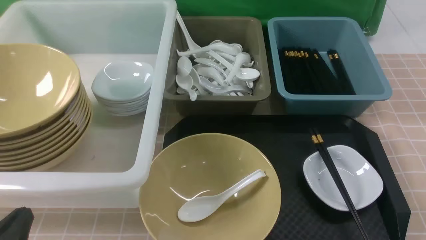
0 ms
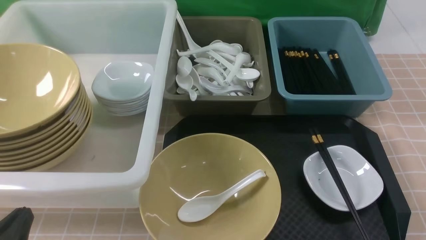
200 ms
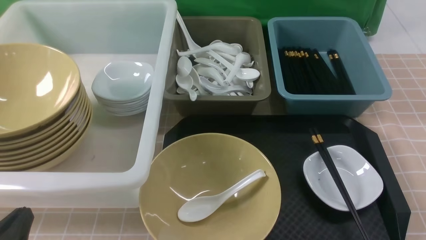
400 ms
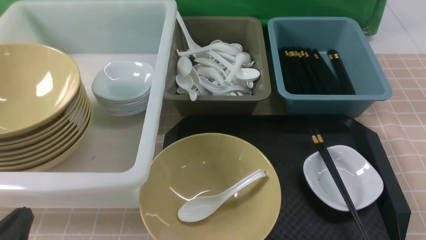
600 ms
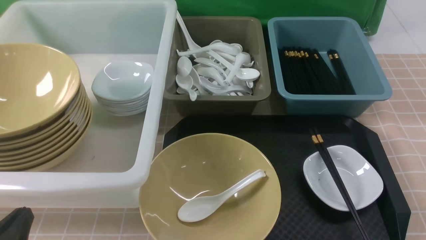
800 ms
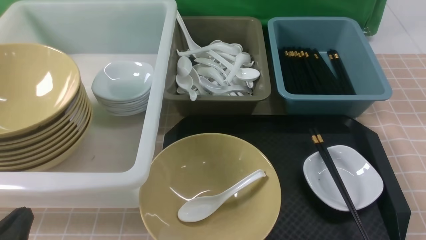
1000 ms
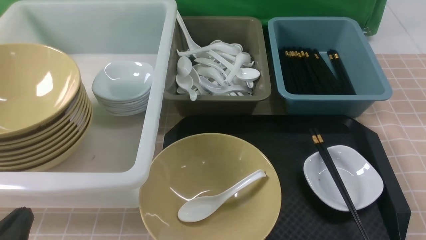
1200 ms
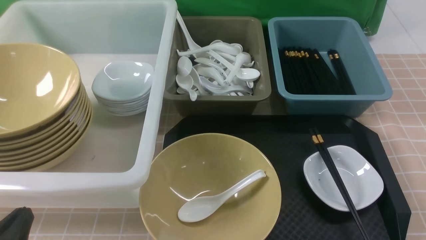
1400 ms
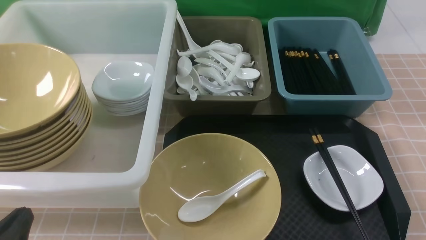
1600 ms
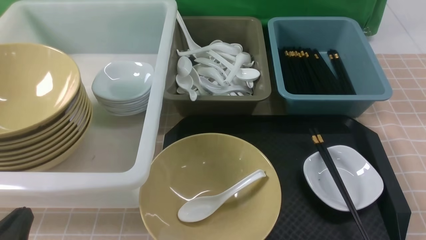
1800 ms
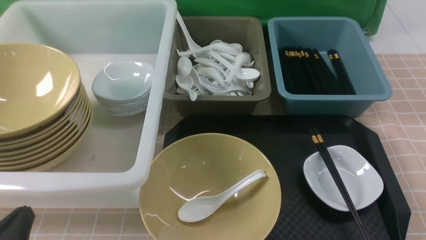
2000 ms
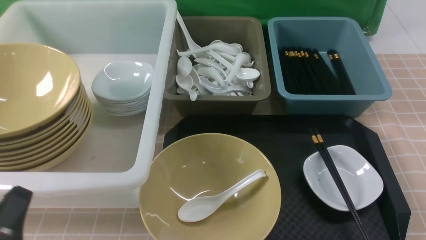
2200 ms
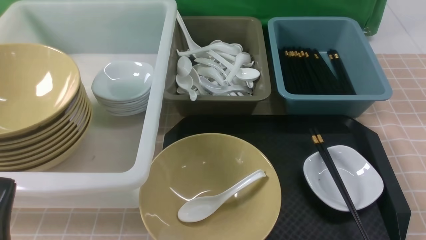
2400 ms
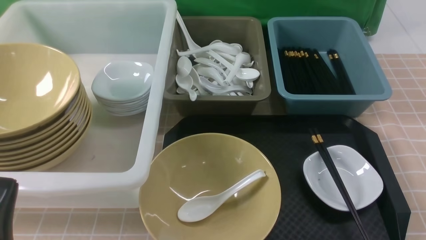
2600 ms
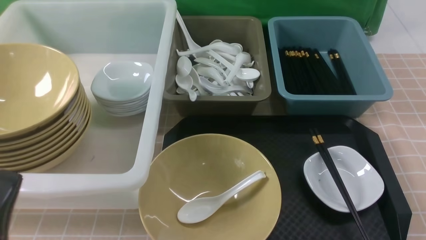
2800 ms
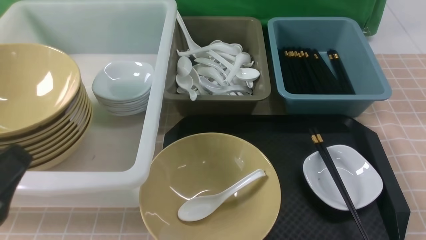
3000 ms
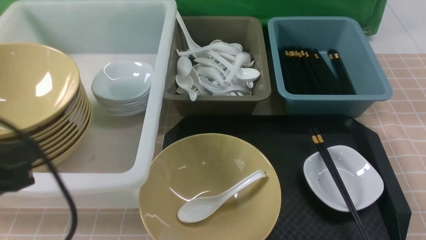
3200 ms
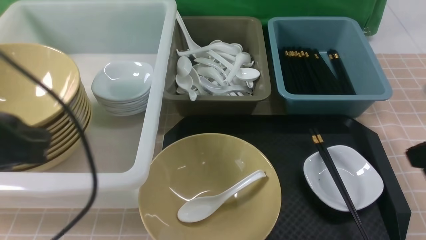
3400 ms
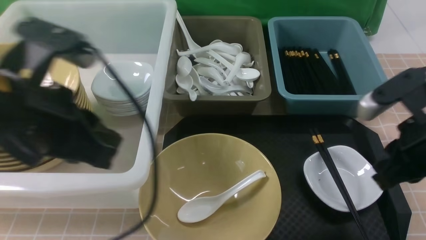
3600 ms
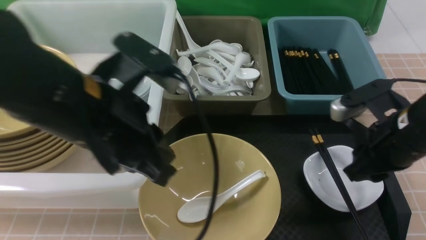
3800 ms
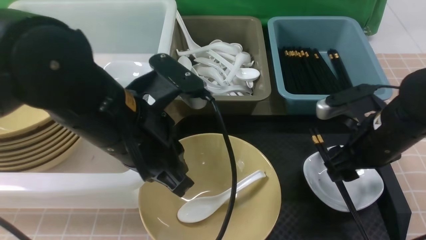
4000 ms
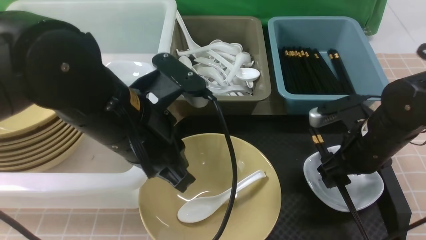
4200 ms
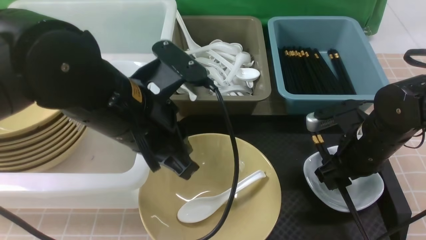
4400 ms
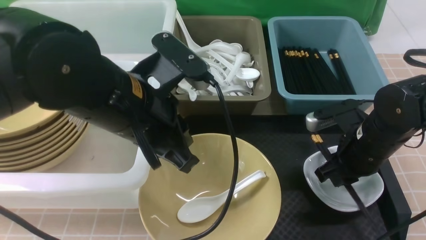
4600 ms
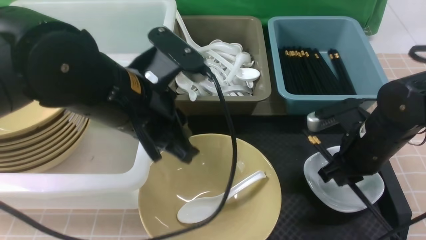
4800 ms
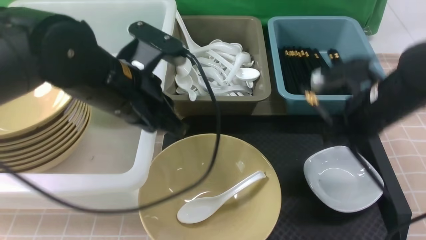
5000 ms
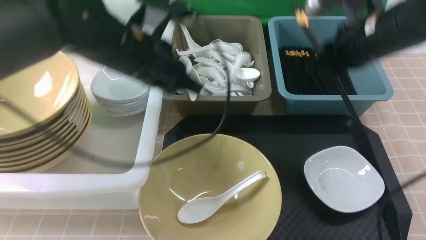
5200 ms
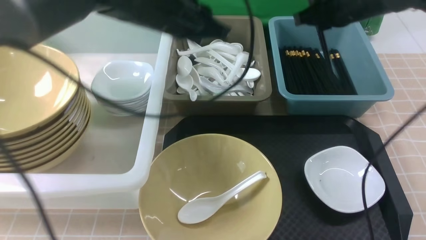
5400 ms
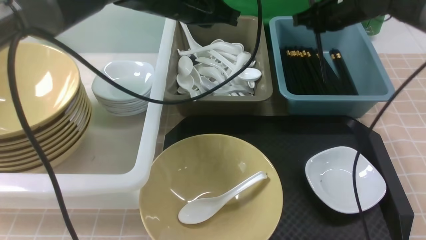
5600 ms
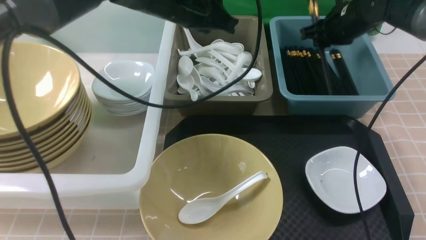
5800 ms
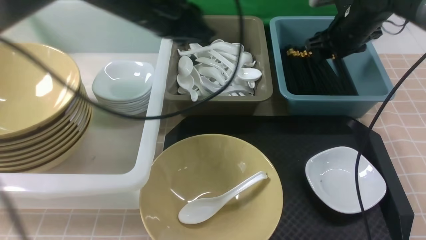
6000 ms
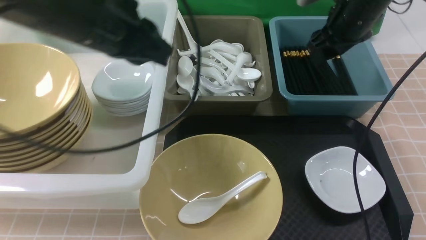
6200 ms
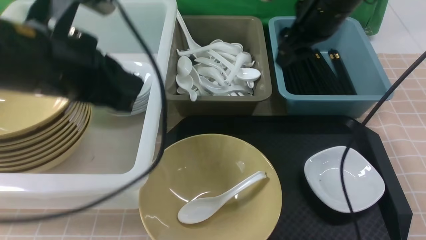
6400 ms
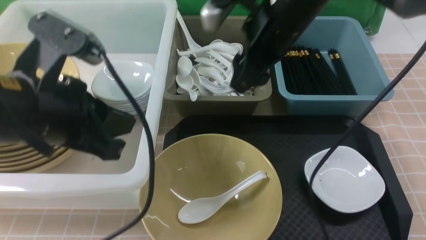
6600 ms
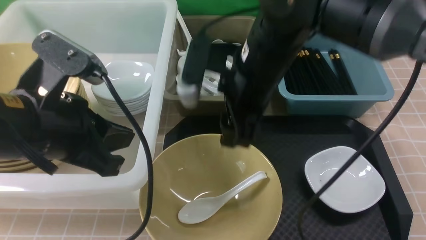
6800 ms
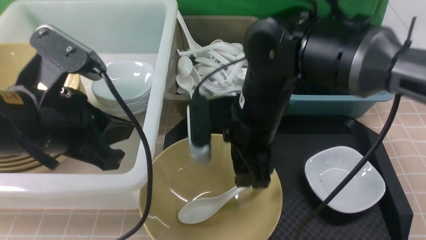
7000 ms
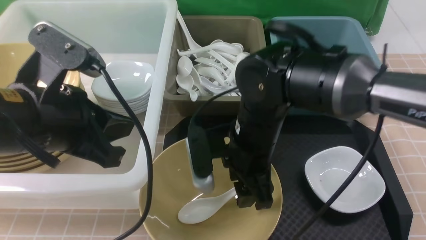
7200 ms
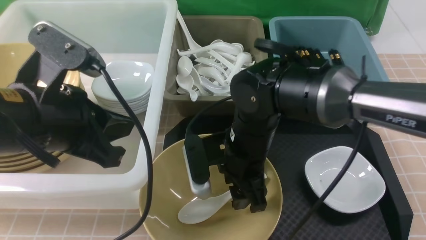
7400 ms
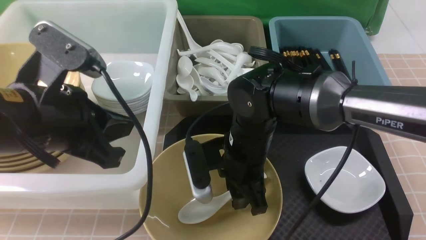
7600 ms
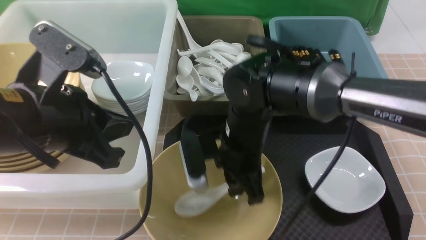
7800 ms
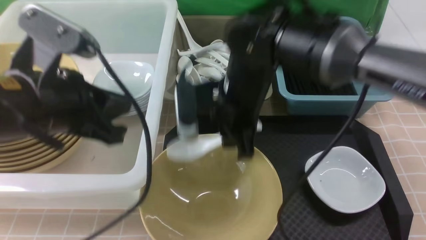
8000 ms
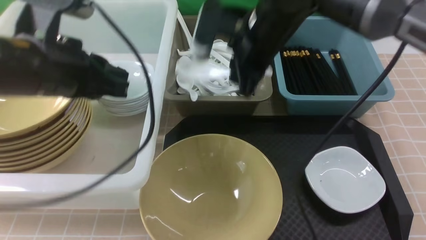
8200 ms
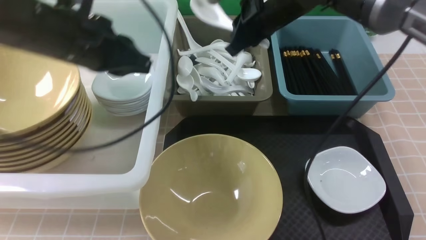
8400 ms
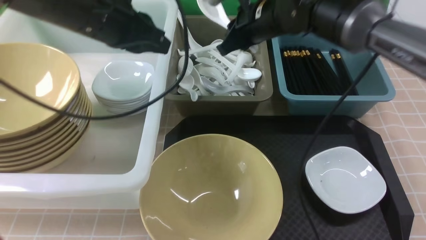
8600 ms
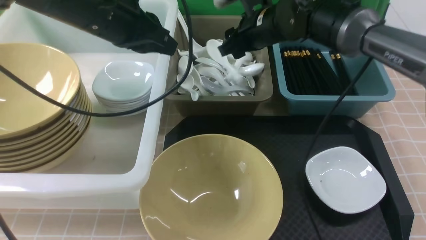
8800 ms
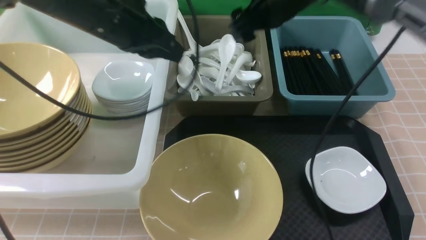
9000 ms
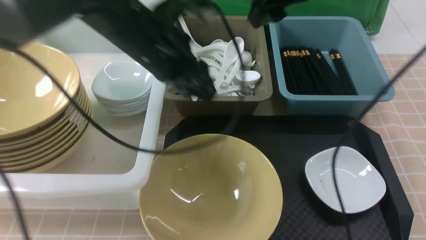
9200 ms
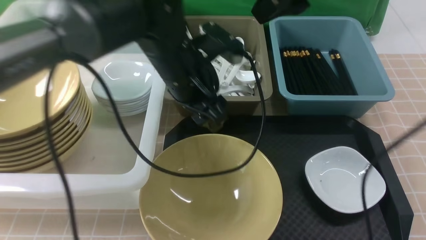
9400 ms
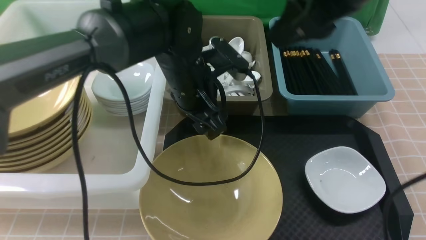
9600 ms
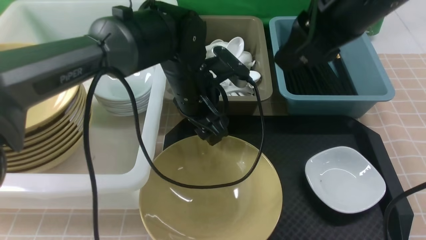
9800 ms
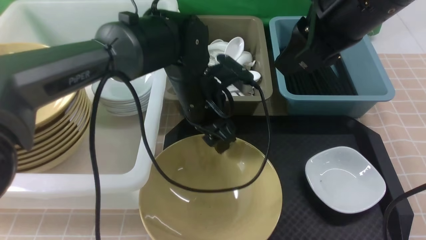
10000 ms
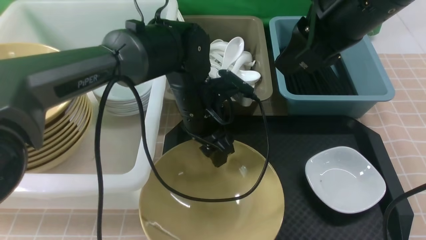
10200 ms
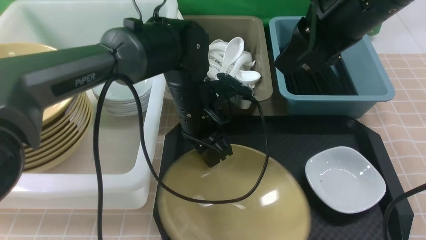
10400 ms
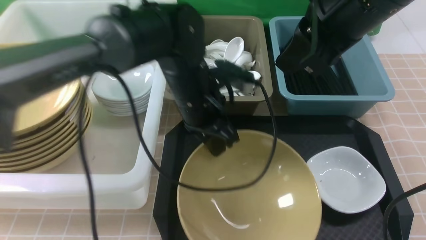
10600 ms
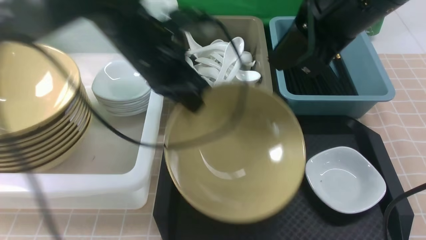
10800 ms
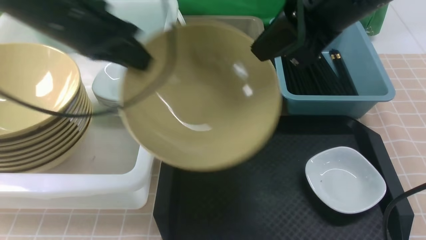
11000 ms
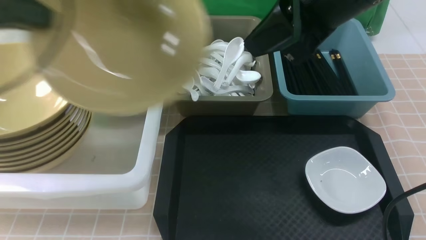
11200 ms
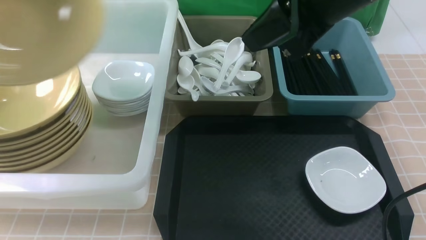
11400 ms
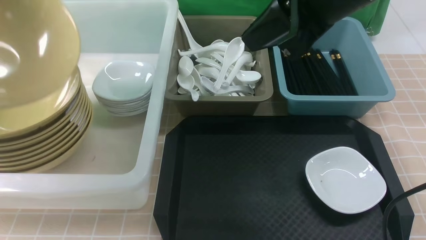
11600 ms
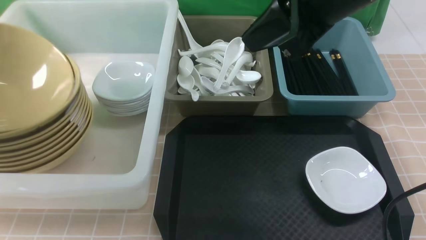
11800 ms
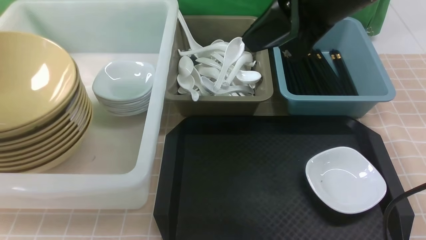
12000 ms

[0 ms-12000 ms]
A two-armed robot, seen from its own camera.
Task of the whole recording: on brown table put chopsticks spoon bowls plates into blue grey white boxes.
Step, 0 ms to 4800 ms: use the right arm to grab the chopsticks.
Step, 5000 ms to 6400 ms: use the right arm to put the chopsticks into the small storage box on the right.
Step, 6600 ms to 7800 ms: use the right arm to grab the soup spoon in the middle.
Step, 8000 ms to 8800 ms: use the right arm to put the soup spoon into the small storage box in the middle.
Step, 9000 ms to 10400 ms: use the left arm to grab the yellow noodle bowl on the left.
1600 ms to 3000 ms: The left gripper moves upward, about 10 cm.
3000 ms to 4400 ms: The right gripper heads forward, covering roughly 25 cm, and opens its fingers; the left gripper shifts about 20 cm forward and to the right.
4400 ms to 6000 ms: The right gripper shifts roughly 20 cm forward and upward, and closes, then opens again. Meanwhile the left gripper is displaced forward by about 15 cm.
6000 ms to 7600 ms: The left gripper heads backward and to the left, covering about 20 cm, while the right gripper shifts approximately 30 cm to the left and backward.
7600 ms to 9000 ms: The left gripper shifts approximately 15 cm forward; the right gripper heads forward, upward and to the right, covering some 20 cm, and closes, then opens again.
9000 ms to 10400 ms: The left gripper travels downward and to the right by about 15 cm, and opens, then closes once more, while the right gripper goes roughly 20 cm backward and upward, and closes its fingers.
10400 ms to 12000 ms: The right gripper closes. The left gripper moves to the left, roughly 40 cm.

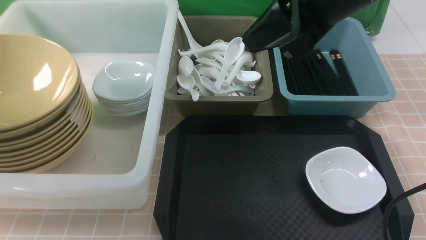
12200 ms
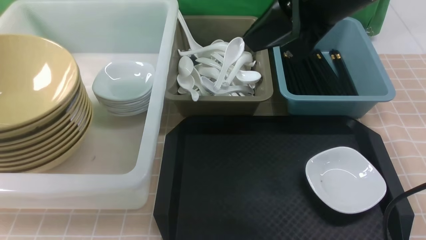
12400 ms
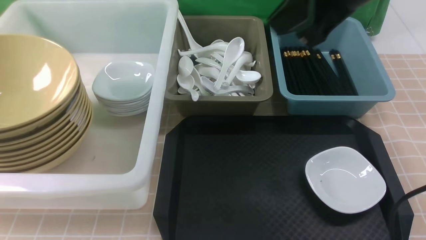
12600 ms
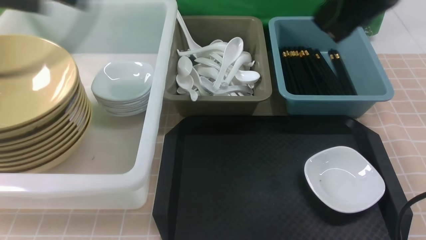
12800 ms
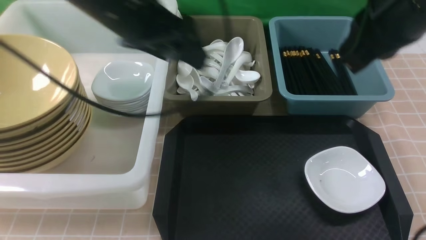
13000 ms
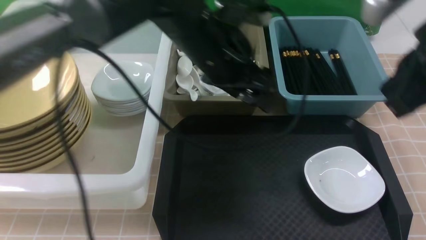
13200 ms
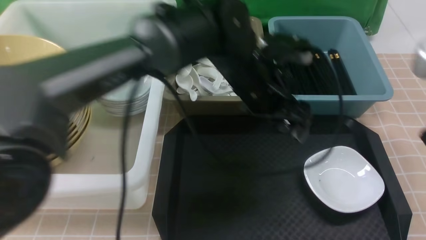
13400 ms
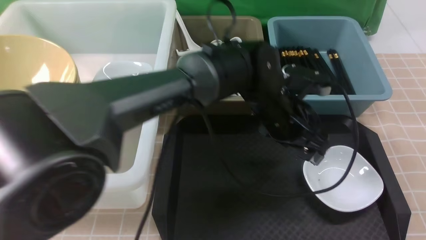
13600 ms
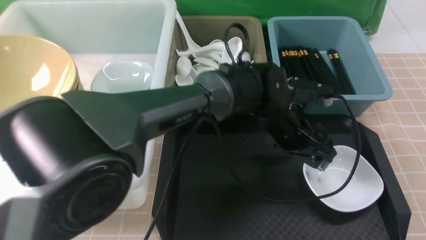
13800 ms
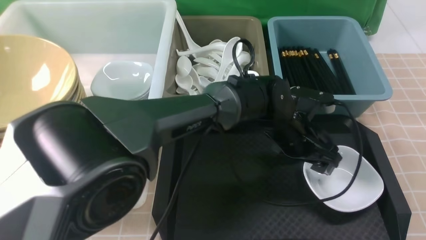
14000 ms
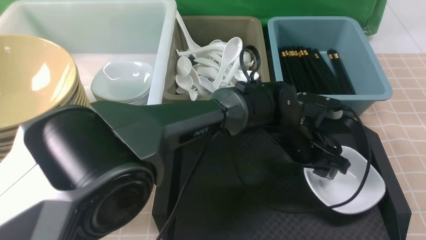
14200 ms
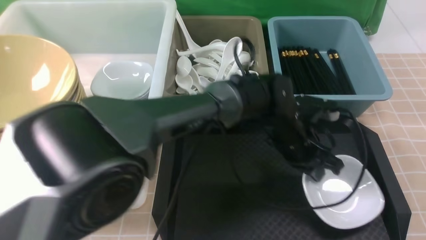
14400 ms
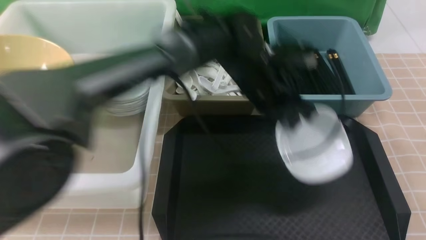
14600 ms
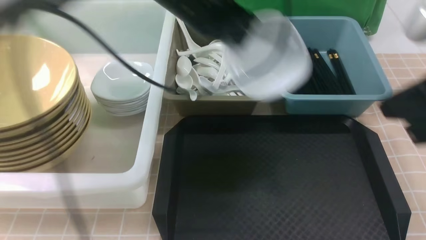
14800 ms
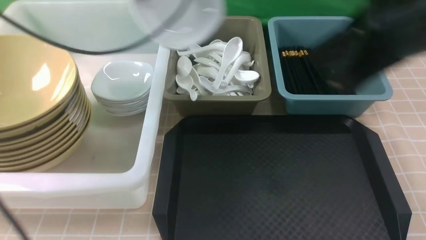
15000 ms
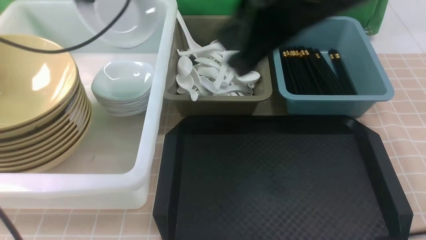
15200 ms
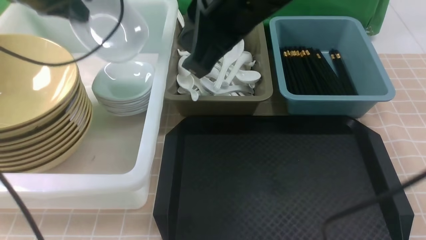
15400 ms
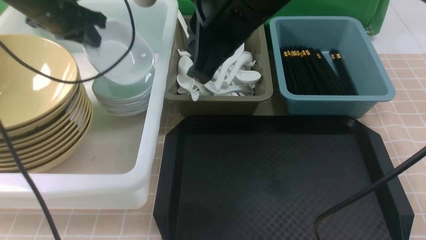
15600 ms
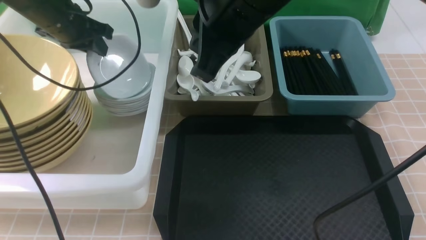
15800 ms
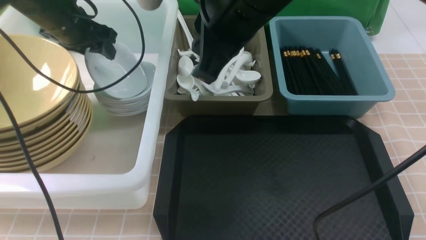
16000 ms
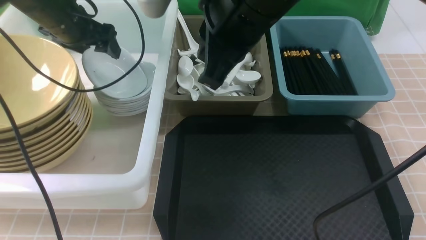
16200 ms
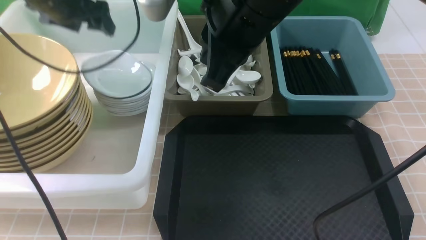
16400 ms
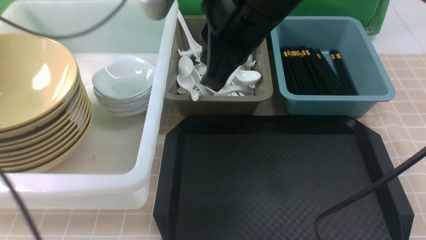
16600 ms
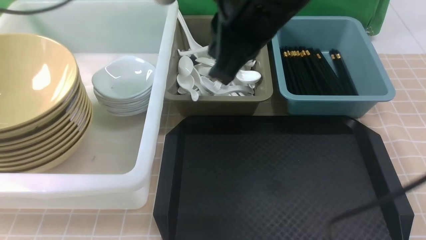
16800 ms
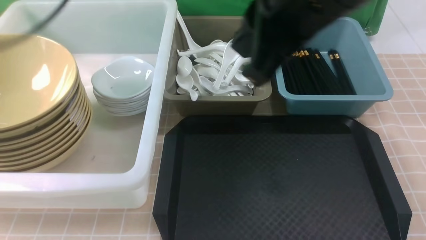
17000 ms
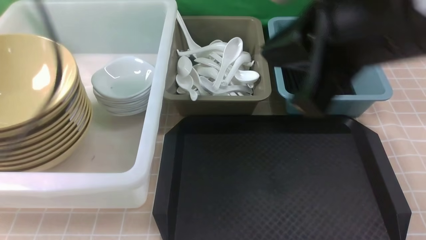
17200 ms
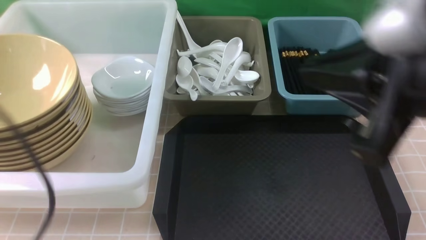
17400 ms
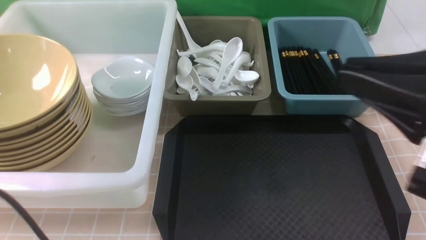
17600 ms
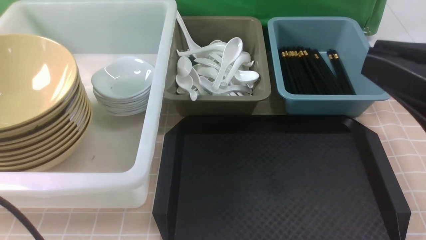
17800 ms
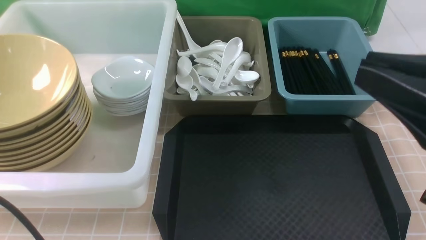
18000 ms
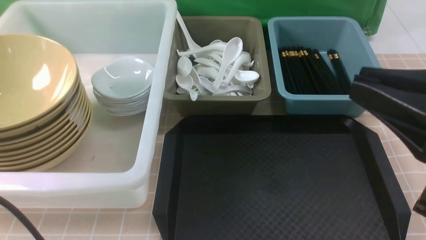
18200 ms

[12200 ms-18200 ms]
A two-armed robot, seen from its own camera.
Task of the whole recording: on brown table put chopsticks spoon bowls plates into blue grey white boxes.
Step, 12400 ms to 14200 ms: use the left arm to grab the plate.
Step, 14600 ms to 16600 ms: use the left arm to put the plate into the large storage box on the left.
12200 ms to 13800 ms: The right gripper goes about 20 cm backward and to the right, while the left gripper travels to the right by some 50 cm.
13800 ms to 15200 ms: The right gripper travels to the left, forward and upward by some 20 cm. The left gripper shifts about 35 cm to the left and upward, and closes its fingers.
15200 ms to 16600 ms: The left gripper moves about 10 cm downward and comes back, and opens up, while the right gripper is displaced to the left by approximately 5 cm.
16600 ms to 18200 ms: The right gripper travels backward and to the right by approximately 25 cm. The left gripper goes about 35 cm backward, and closes up.
